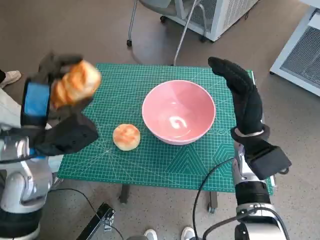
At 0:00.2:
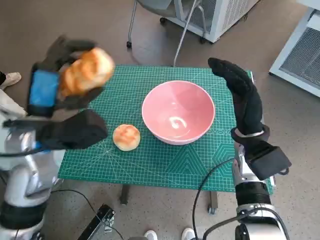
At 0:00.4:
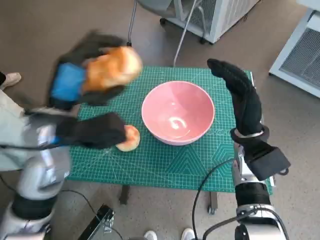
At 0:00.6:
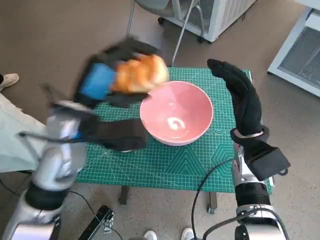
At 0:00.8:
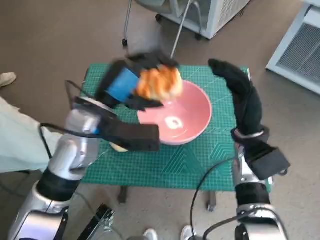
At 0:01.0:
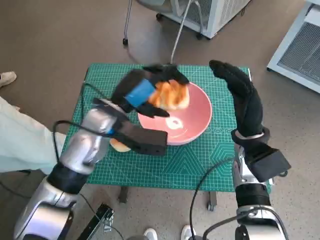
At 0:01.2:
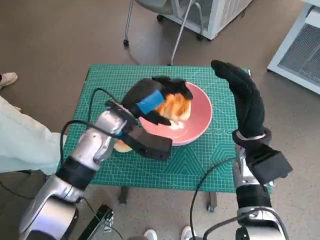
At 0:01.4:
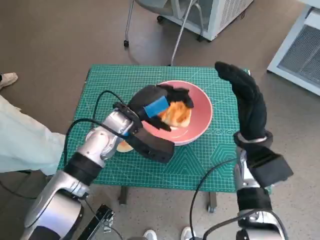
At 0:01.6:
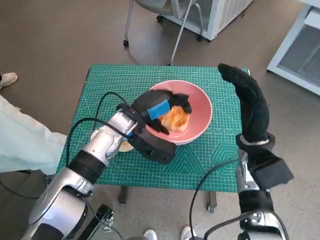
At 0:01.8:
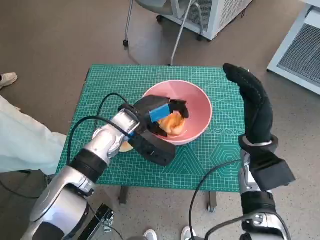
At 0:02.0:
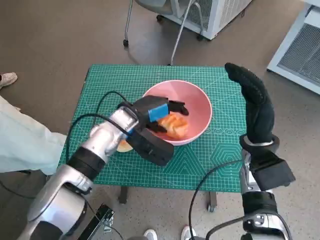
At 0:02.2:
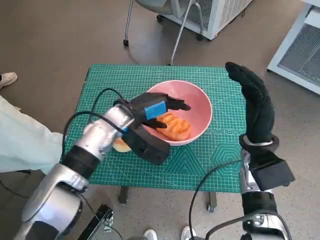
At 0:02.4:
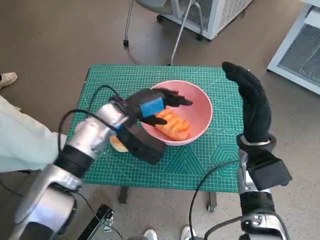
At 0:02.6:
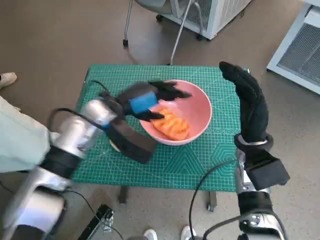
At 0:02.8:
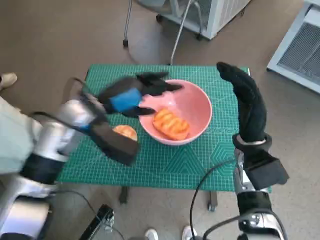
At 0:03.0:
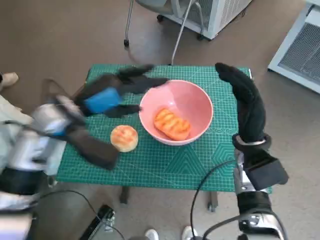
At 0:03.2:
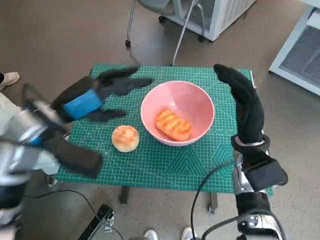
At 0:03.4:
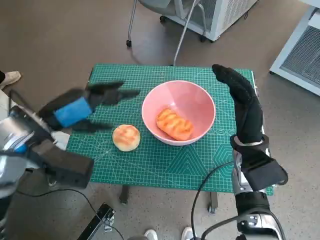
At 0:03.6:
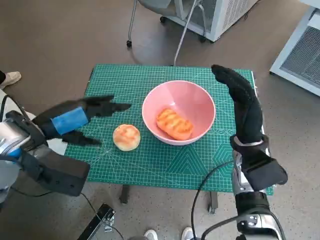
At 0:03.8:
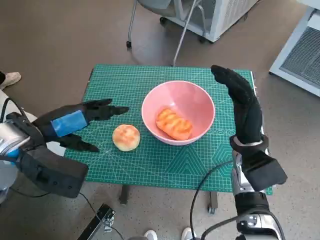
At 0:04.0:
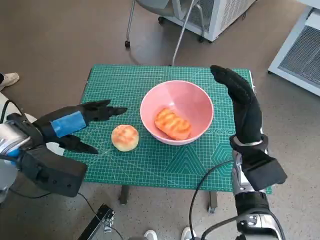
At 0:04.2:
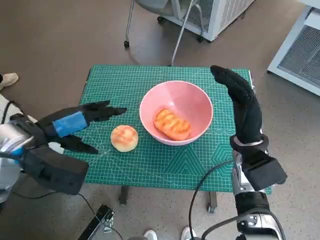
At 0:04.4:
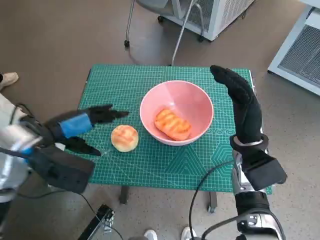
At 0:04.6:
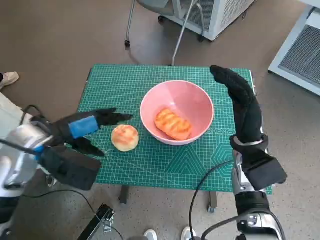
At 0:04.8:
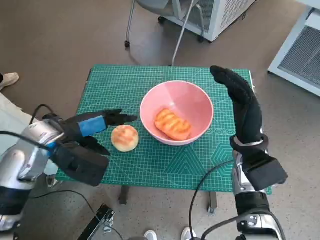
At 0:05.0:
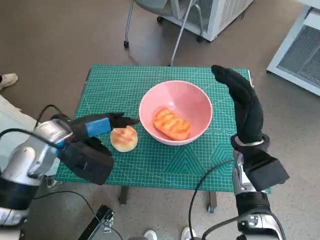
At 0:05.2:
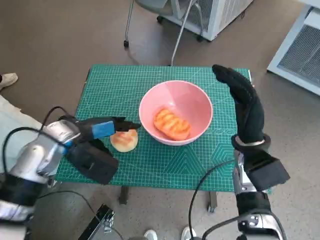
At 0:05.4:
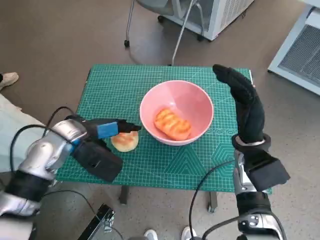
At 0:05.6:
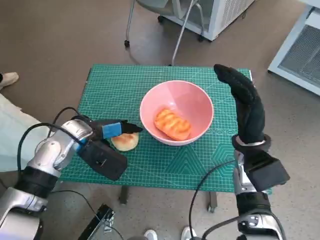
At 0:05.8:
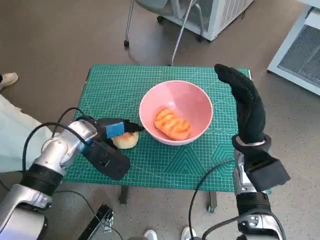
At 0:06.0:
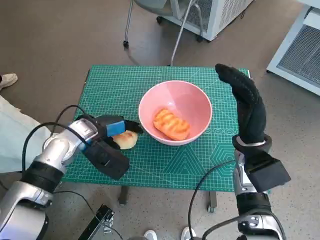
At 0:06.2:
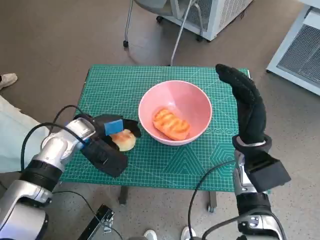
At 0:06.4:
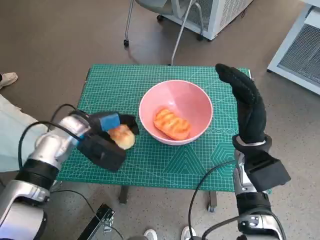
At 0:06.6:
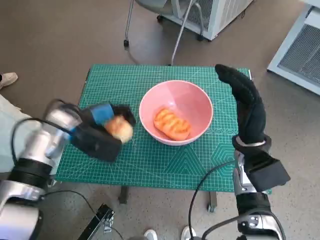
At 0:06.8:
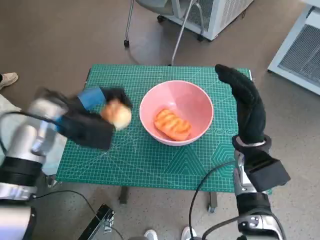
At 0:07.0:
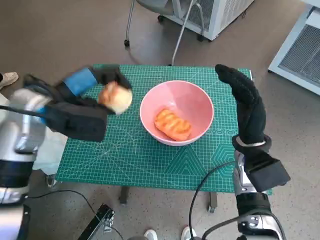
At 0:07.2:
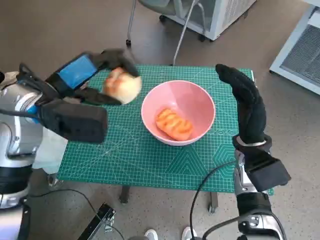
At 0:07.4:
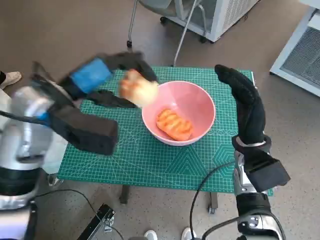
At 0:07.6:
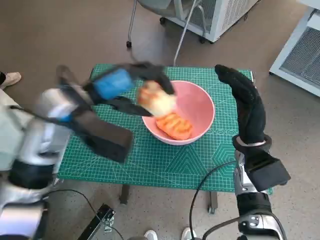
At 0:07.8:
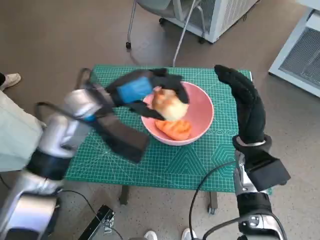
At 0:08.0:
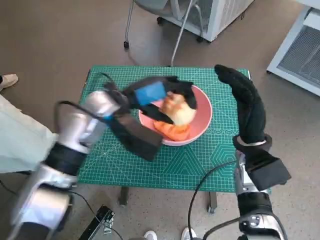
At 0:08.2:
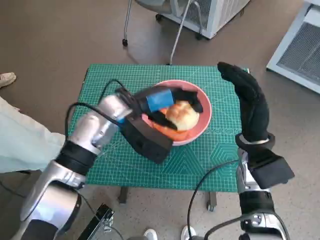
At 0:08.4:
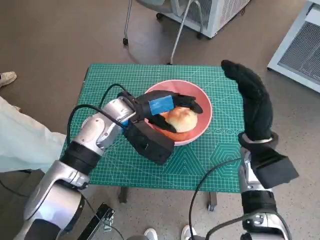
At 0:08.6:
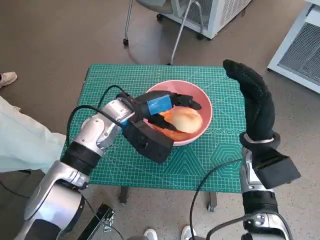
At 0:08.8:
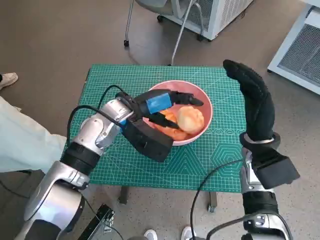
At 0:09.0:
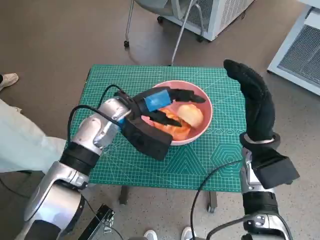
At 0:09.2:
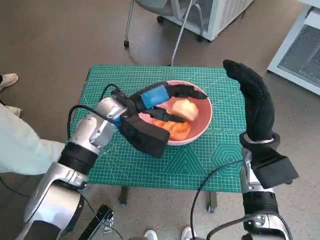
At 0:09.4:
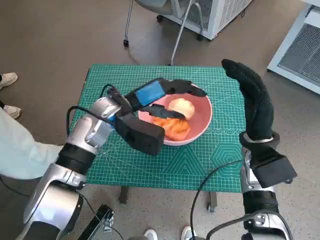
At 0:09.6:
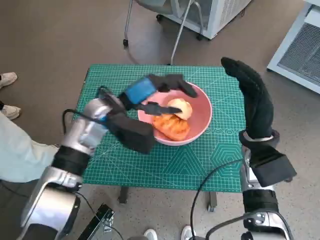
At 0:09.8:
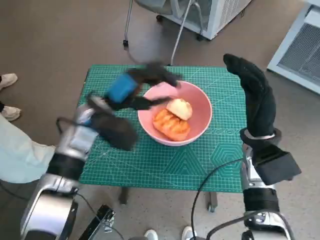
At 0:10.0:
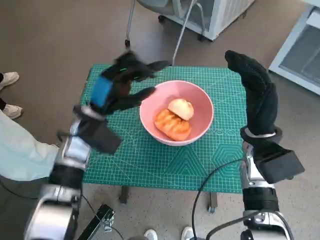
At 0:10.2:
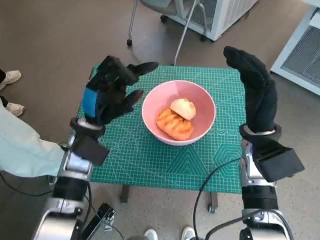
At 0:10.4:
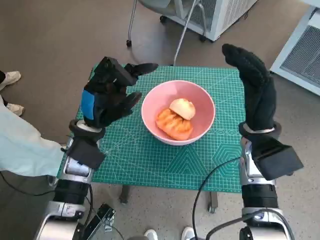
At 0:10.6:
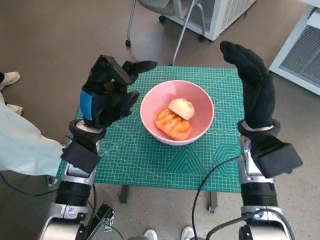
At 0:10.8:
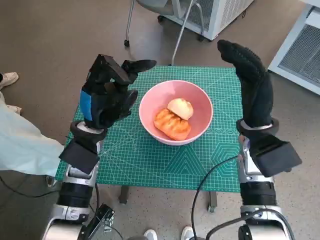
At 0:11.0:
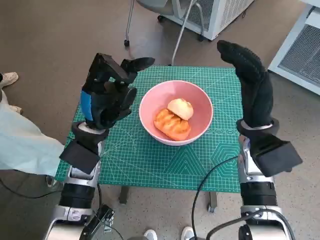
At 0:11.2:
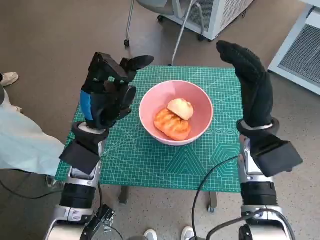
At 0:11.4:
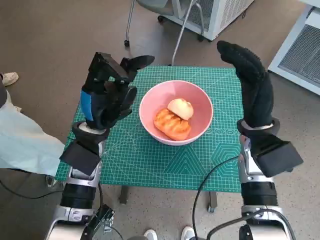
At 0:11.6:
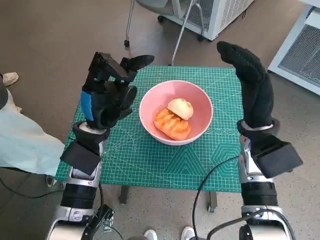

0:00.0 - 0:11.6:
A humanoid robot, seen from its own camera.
Task of the whole recording: Push the bowl to the center of the table and put the bread into the bowl.
Step, 0:00.0 - 0:02.2: Place the long bread in pink bowl with left hand.
Step, 0:02.6 - 0:06.0: Grasp the round bread with left hand.
Step, 0:06.2 - 0:09.2: Place the round bread in pink bowl with left hand.
0:00.0 - 0:01.4: The left hand travels to the right and forward by some 15 cm.
0:01.4 - 0:02.8: The left hand ends up approximately 5 cm from where it was.
0:02.8 - 0:04.4: The left hand moves to the left and backward, approximately 10 cm.
0:04.4 - 0:05.8: The left hand heads downward and forward, covering some 10 cm.
0:05.8 - 0:07.2: The left hand moves upward, roughly 10 cm.
0:07.2 - 0:08.8: The left hand moves to the right and downward, some 15 cm.
0:08.8 - 0:10.2: The left hand goes approximately 5 cm to the left.
0:10.2 - 0:11.6: The hands make only small movements.
